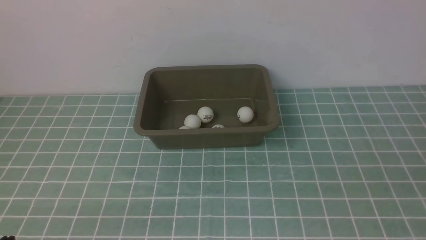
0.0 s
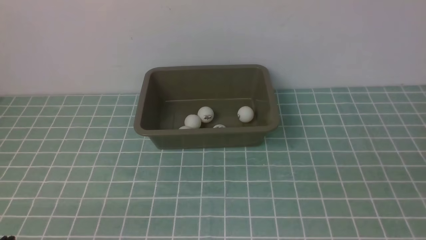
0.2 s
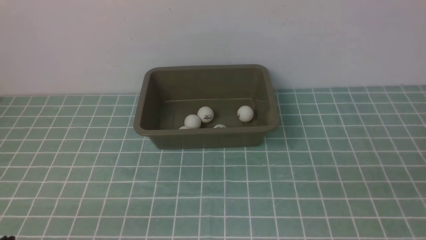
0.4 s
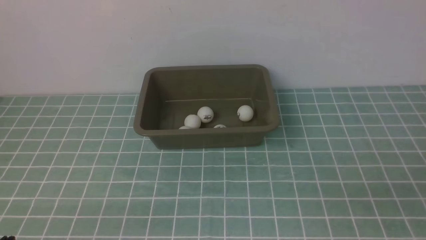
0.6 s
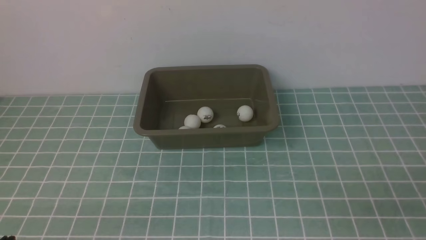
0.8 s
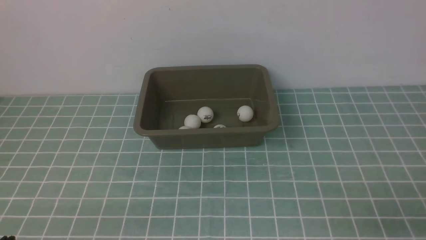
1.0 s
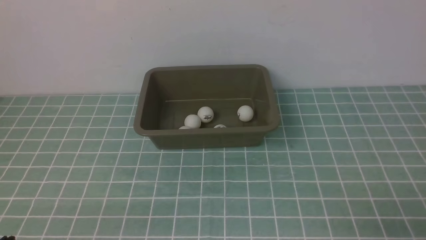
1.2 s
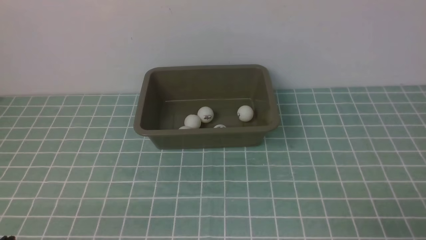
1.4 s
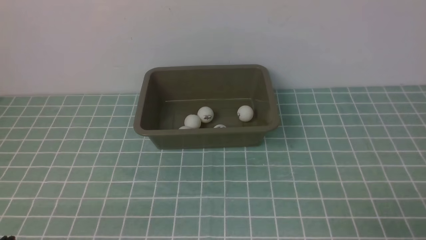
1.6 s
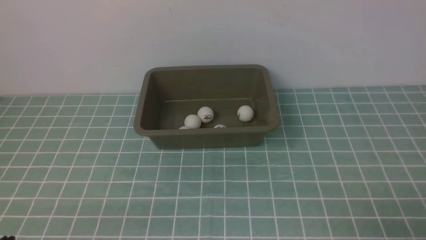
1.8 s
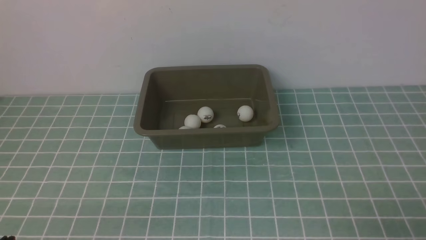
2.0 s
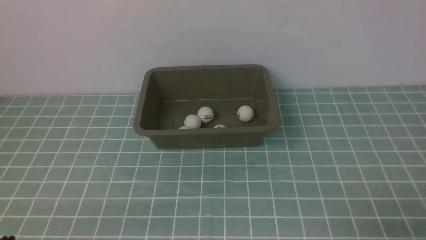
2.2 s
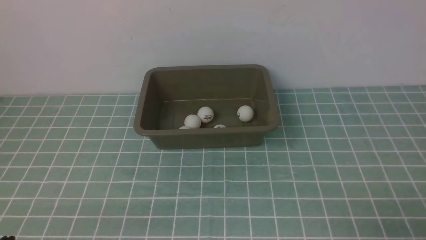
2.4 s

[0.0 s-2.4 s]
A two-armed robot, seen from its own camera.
1.2 to 2.4 s: Neither gripper changes place.

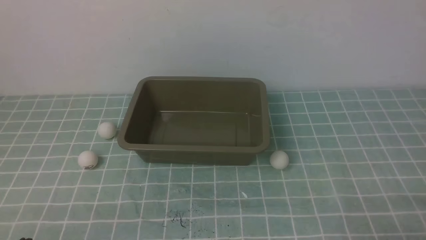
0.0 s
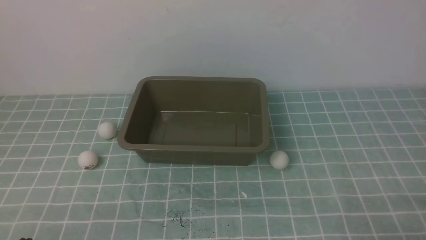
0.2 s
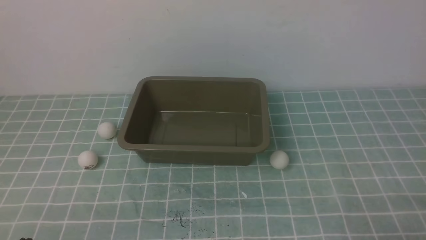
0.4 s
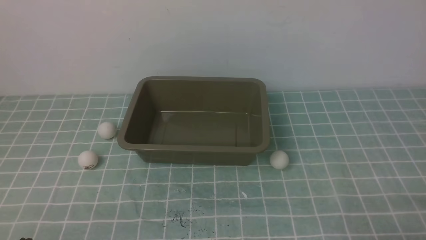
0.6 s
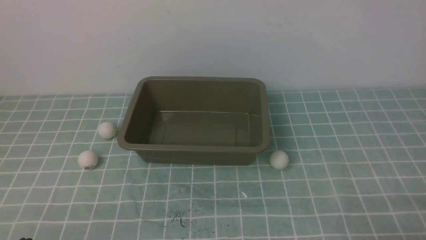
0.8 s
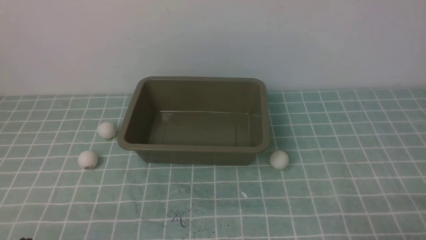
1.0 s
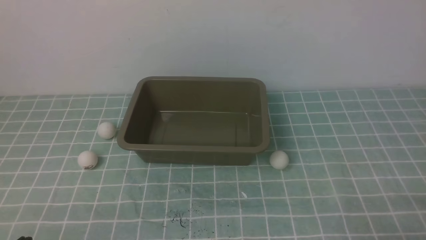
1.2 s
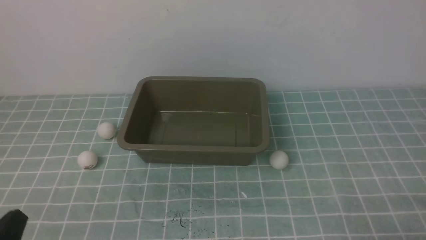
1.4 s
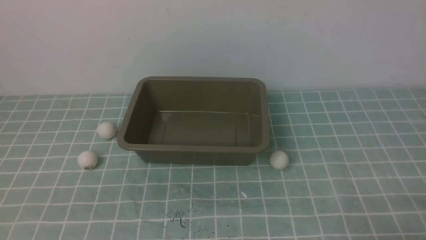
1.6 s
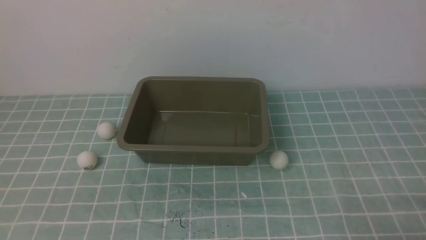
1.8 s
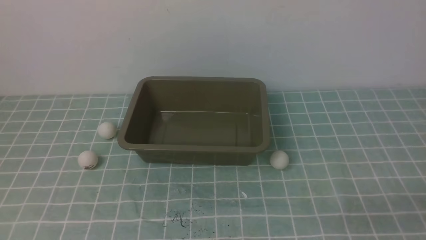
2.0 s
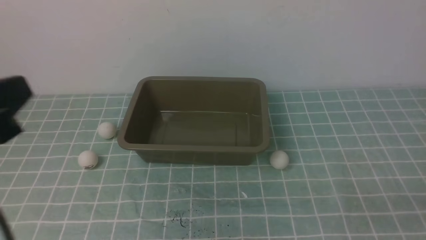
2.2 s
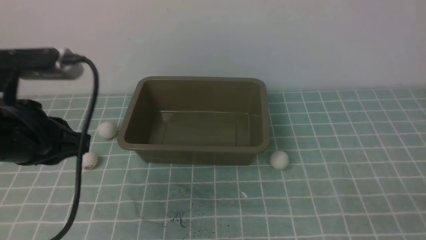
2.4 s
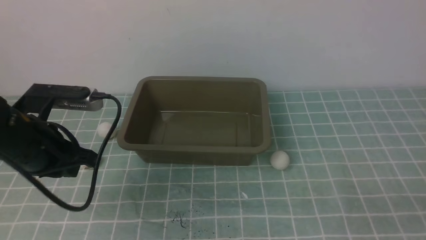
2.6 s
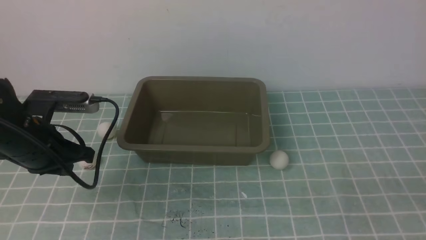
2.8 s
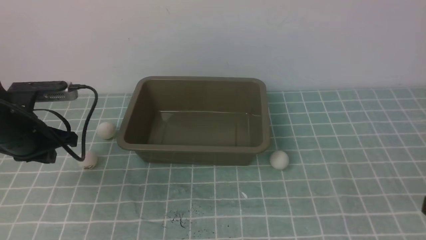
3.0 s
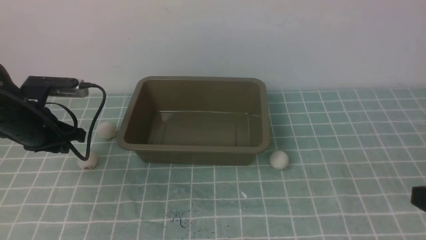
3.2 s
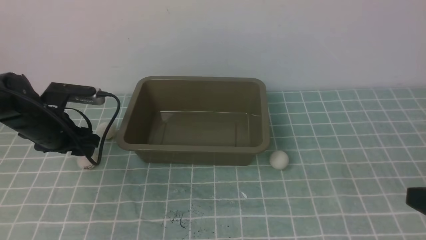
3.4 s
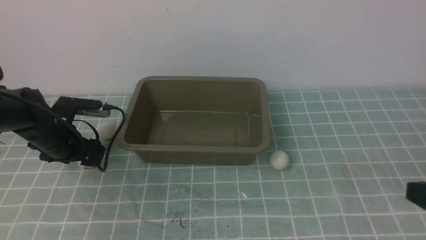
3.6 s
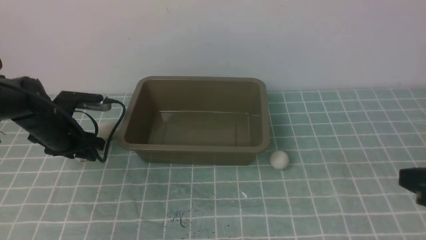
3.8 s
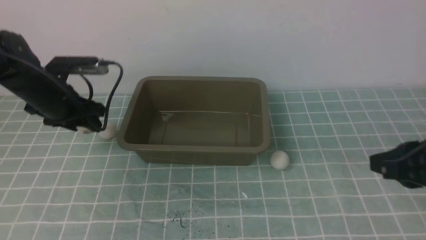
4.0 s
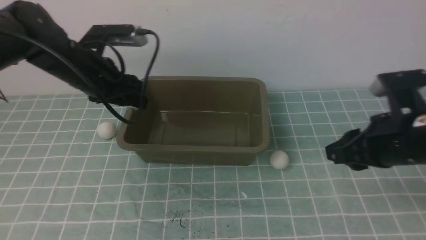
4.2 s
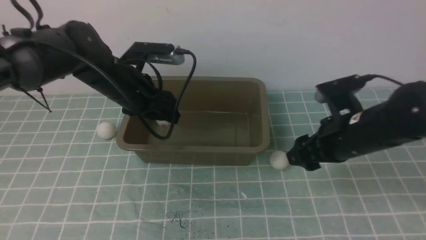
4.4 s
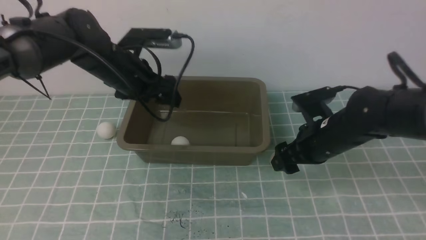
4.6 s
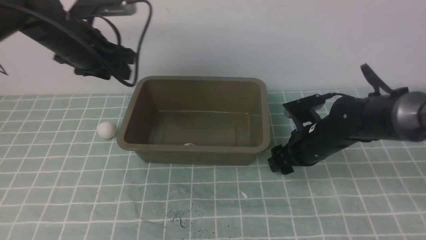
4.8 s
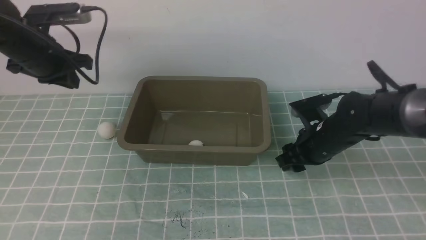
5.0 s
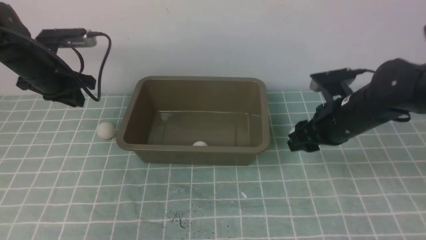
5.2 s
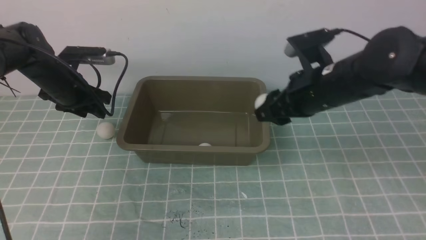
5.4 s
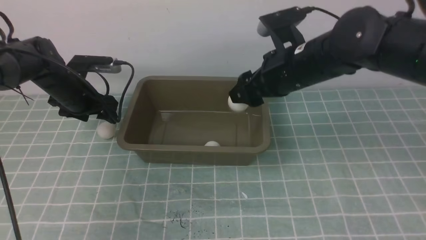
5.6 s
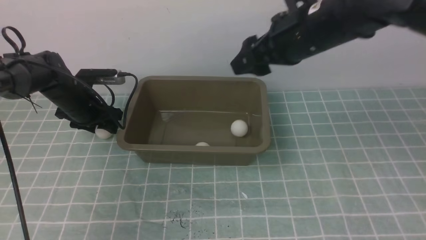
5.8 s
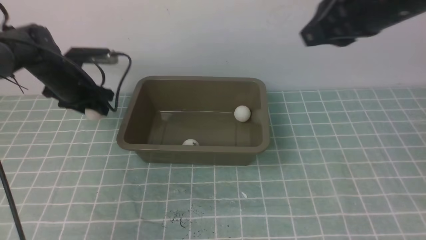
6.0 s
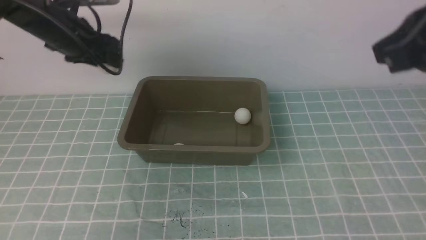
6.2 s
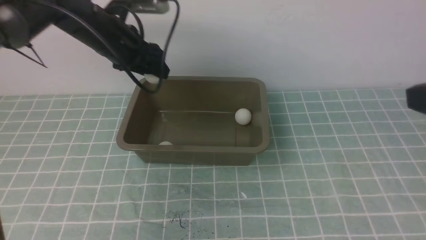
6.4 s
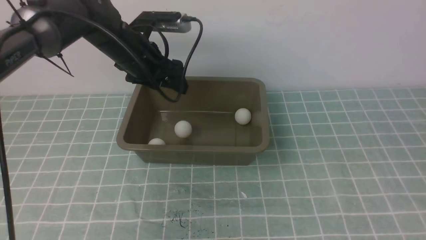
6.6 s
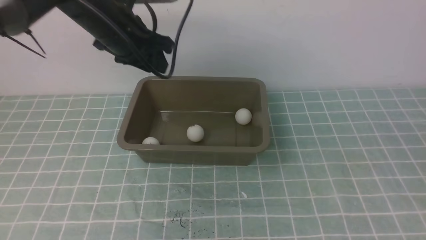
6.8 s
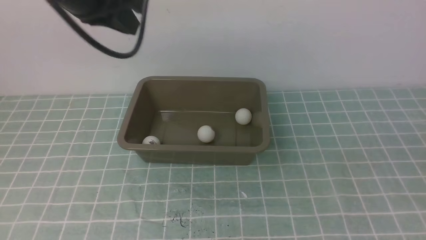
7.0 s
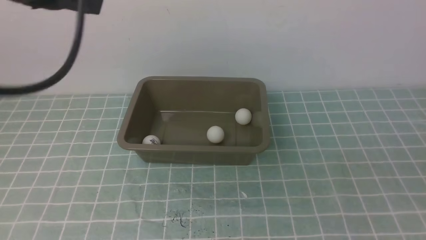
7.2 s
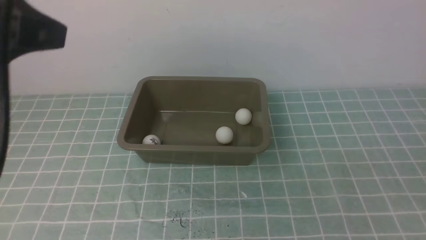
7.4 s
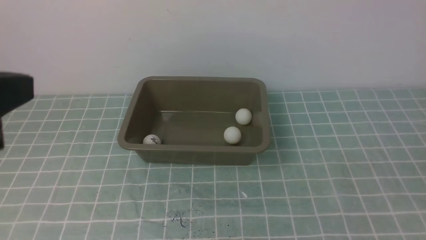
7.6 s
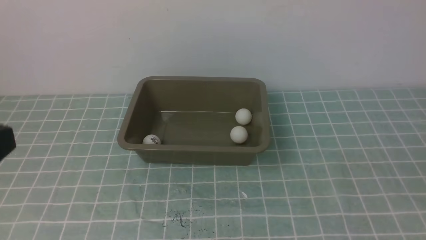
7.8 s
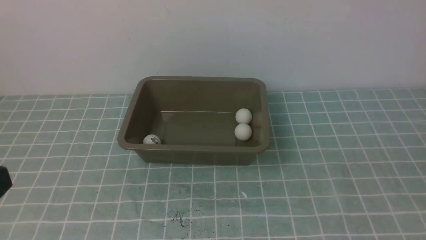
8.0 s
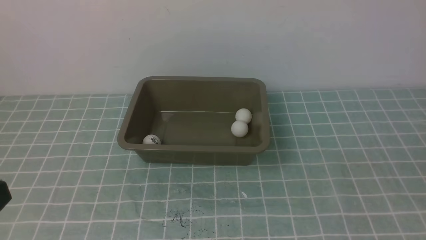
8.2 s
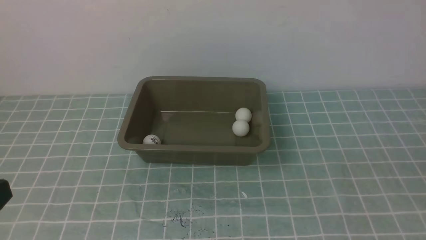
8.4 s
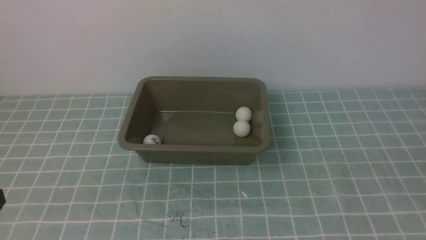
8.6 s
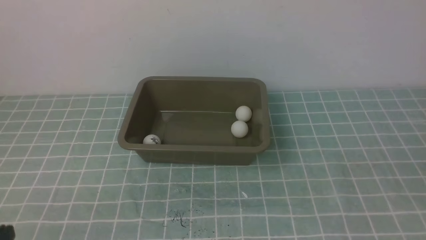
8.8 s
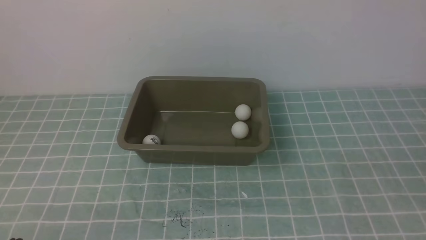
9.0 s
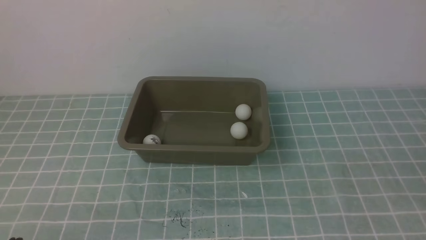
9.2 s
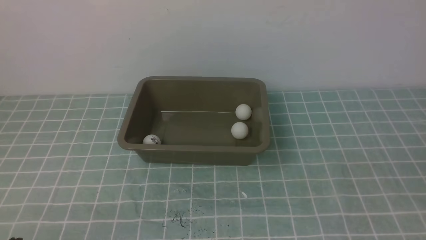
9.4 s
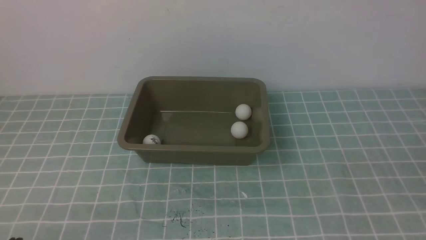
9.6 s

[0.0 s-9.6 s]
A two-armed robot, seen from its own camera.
Step, 0.0 to 4.0 s: use the left arm to clamp the table tennis ball closest to it.
Step, 4.2 to 4.6 s: use the left arm to put the table tennis ball into the box.
Step, 4.8 to 5.2 s: use the right arm to clamp the table tennis ball closest to it.
Step, 5.4 to 5.6 s: use the right arm to put the table tennis ball into the box.
Step, 5.8 to 6.0 s: use the left arm to clamp the table tennis ball closest to it.
Step, 6.2 to 6.8 s: use the left arm to put the table tennis ball into the box.
1.6 to 3.2 s: The left gripper shifts some 25 cm forward; the right gripper is displaced upward by approximately 10 cm.
3.2 to 4.8 s: The right gripper heads forward, downward and to the left, covering roughly 30 cm, and opens up, while the left gripper is displaced forward, to the right and upward by approximately 15 cm, and opens up.
4.8 to 6.4 s: The right gripper is displaced upward and backward by about 30 cm, and closes. Meanwhile the left gripper travels downward and back again, about 10 cm each way, and closes and opens again.
6.4 to 8.0 s: The right gripper shifts about 20 cm backward, to the right and downward, while the left gripper goes approximately 40 cm backward, and closes its fingers.
8.0 to 9.6 s: The left gripper shifts about 20 cm downward.

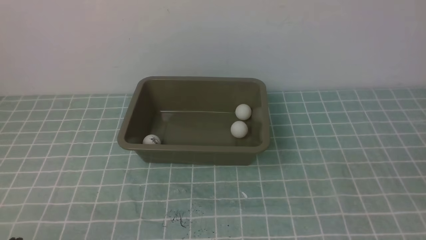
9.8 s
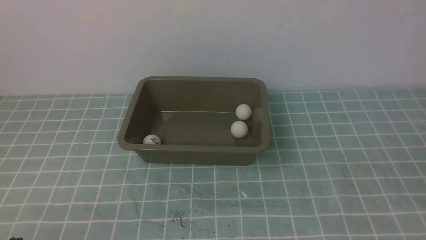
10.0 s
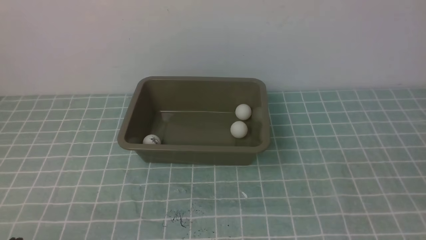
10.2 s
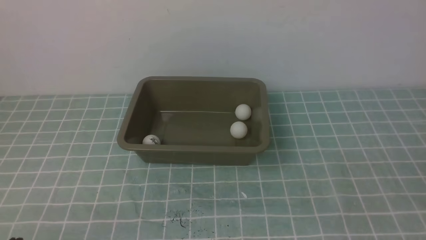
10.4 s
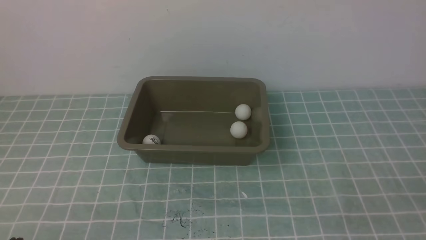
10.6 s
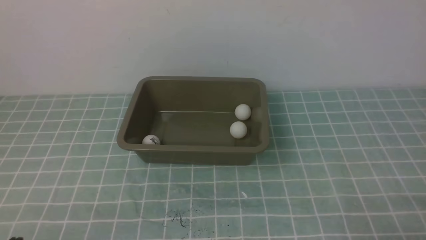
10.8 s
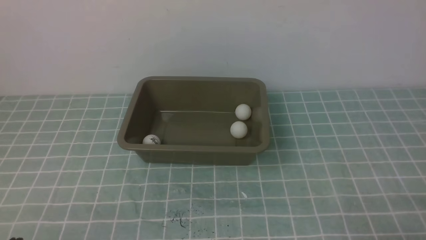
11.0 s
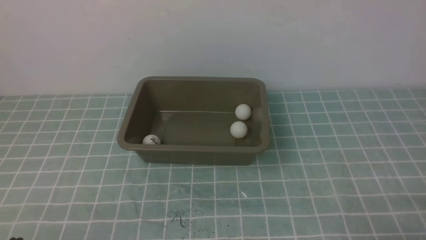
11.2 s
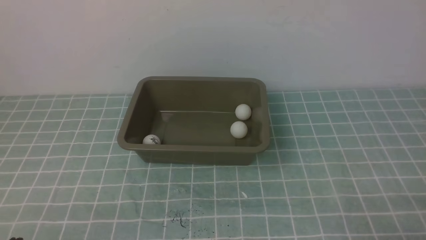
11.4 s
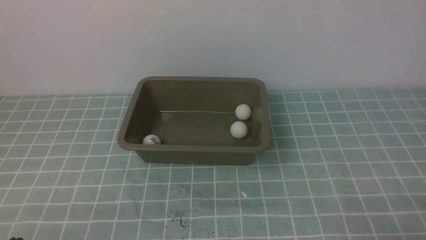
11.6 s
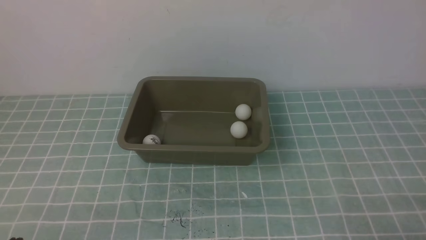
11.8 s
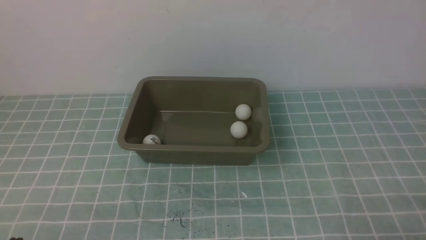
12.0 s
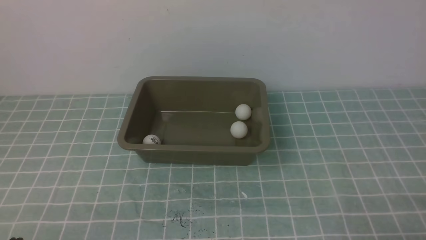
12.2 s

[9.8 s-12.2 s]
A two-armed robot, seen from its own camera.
11.0 to 12.2 s: Neither gripper changes place.
